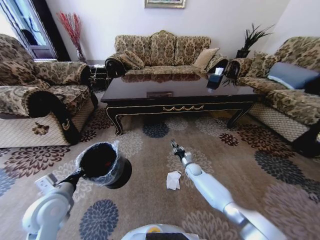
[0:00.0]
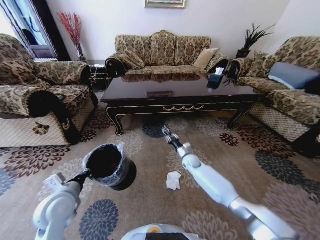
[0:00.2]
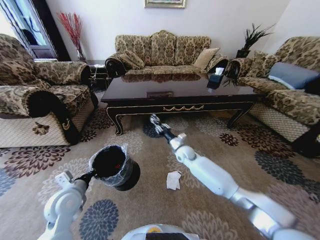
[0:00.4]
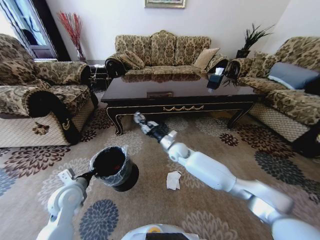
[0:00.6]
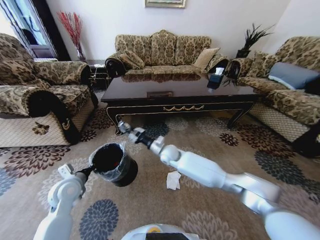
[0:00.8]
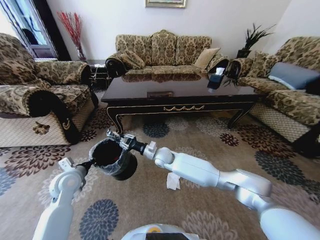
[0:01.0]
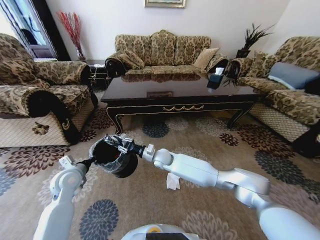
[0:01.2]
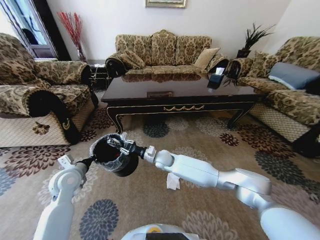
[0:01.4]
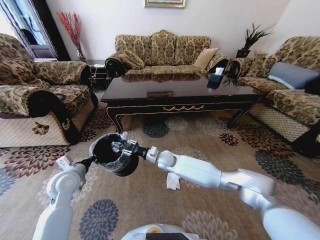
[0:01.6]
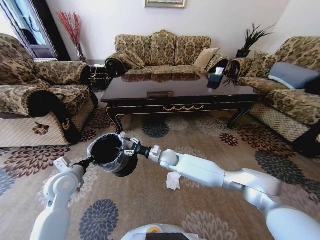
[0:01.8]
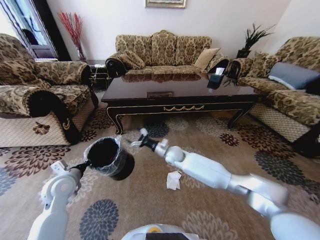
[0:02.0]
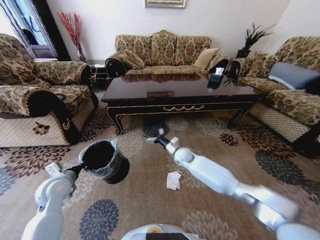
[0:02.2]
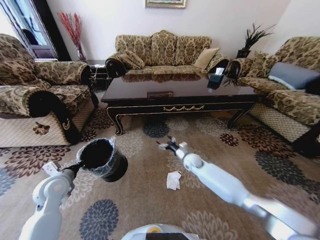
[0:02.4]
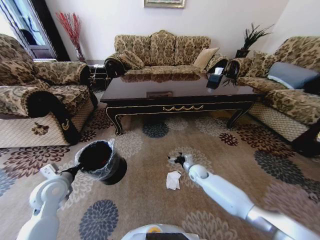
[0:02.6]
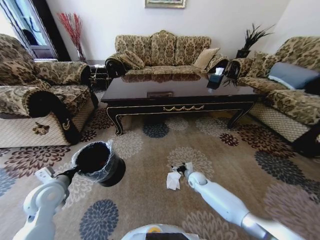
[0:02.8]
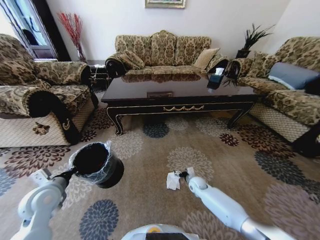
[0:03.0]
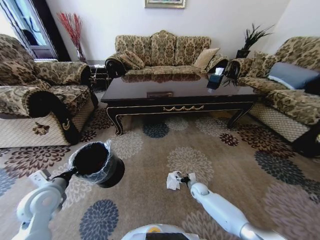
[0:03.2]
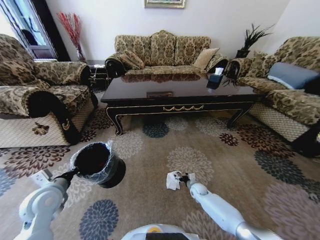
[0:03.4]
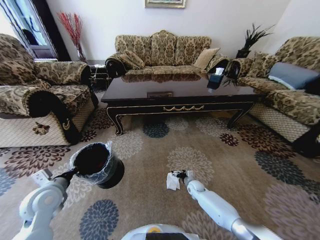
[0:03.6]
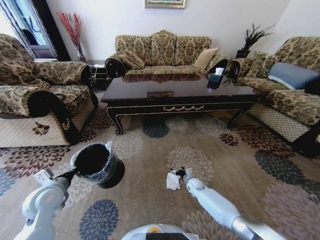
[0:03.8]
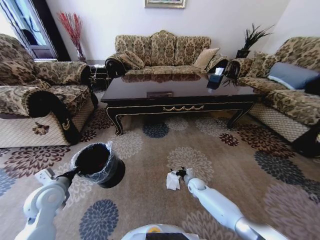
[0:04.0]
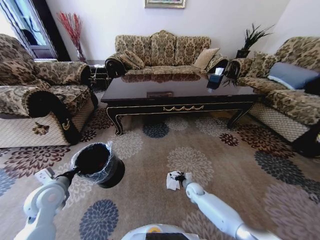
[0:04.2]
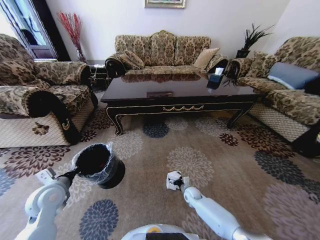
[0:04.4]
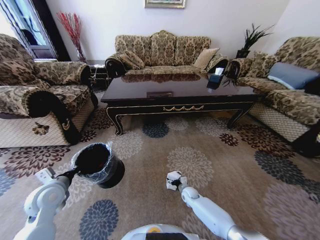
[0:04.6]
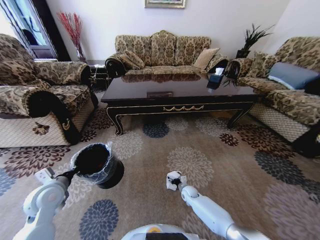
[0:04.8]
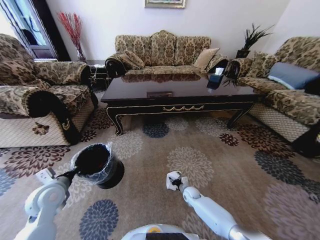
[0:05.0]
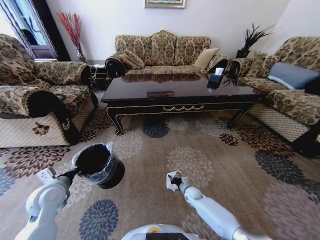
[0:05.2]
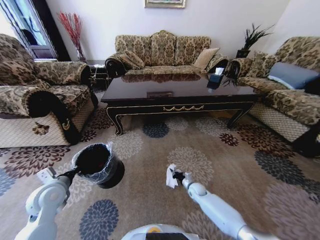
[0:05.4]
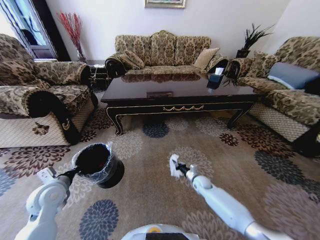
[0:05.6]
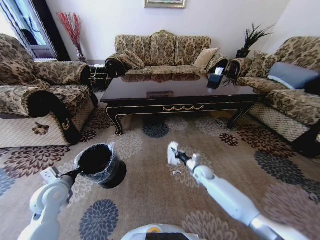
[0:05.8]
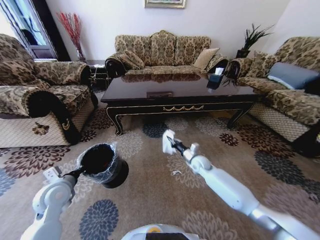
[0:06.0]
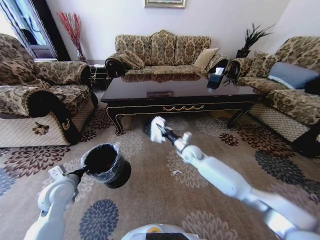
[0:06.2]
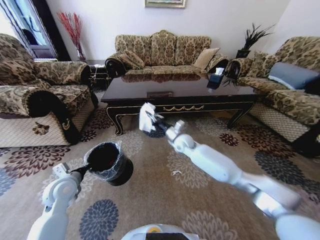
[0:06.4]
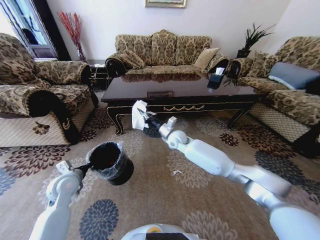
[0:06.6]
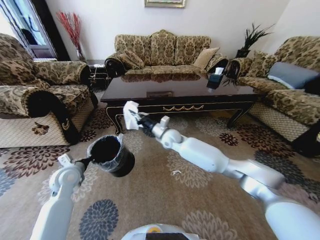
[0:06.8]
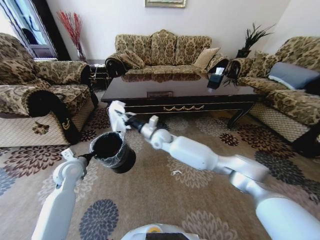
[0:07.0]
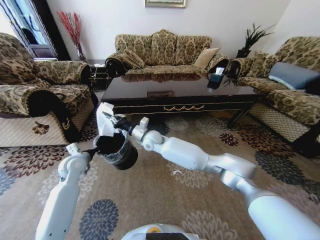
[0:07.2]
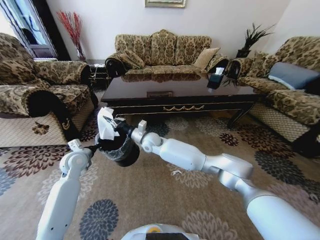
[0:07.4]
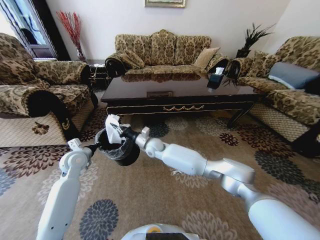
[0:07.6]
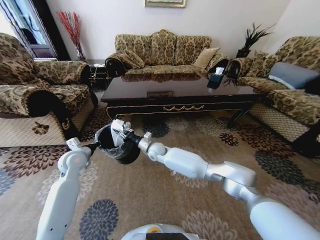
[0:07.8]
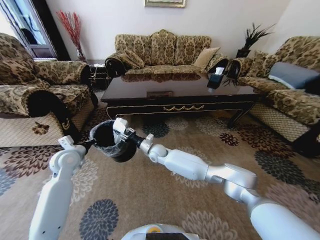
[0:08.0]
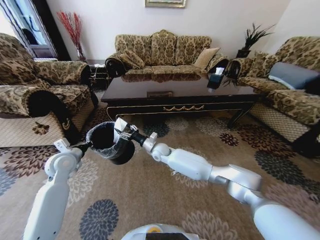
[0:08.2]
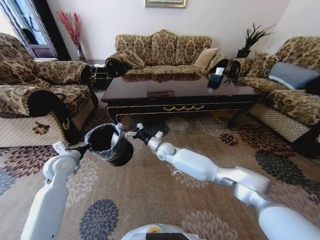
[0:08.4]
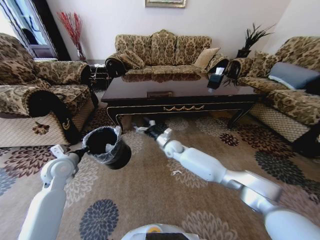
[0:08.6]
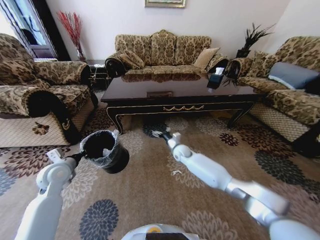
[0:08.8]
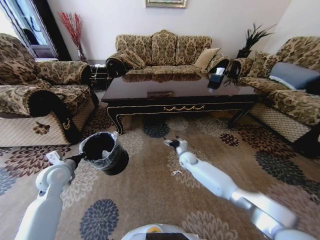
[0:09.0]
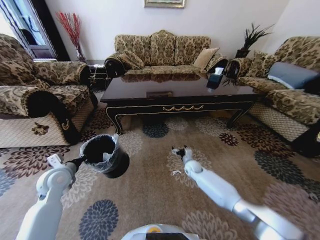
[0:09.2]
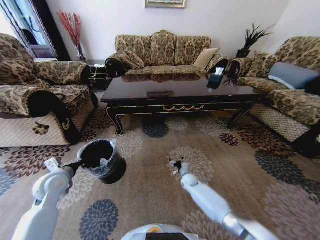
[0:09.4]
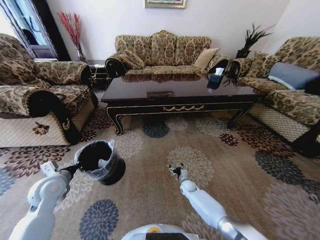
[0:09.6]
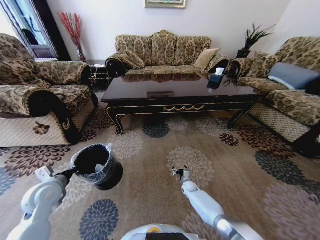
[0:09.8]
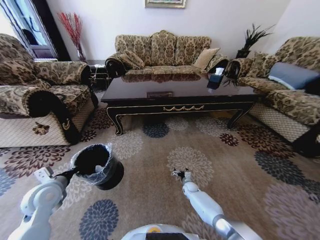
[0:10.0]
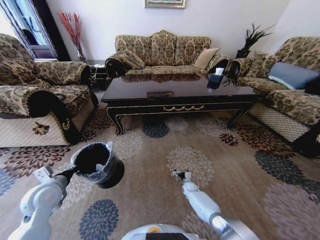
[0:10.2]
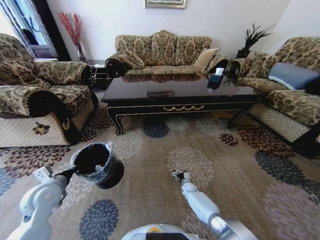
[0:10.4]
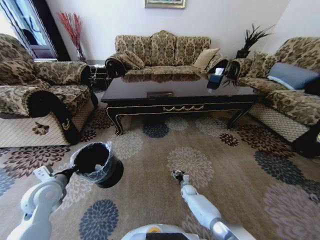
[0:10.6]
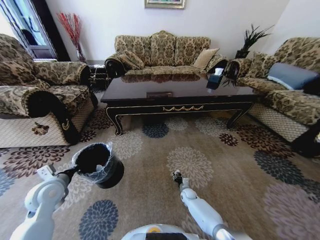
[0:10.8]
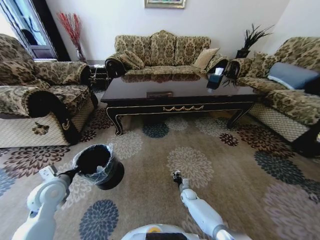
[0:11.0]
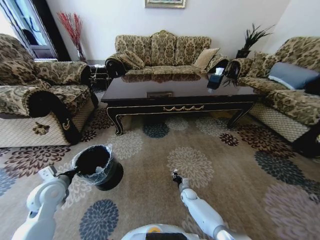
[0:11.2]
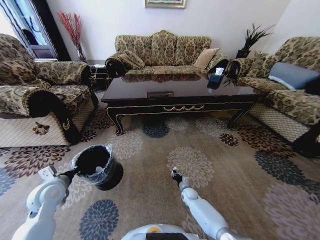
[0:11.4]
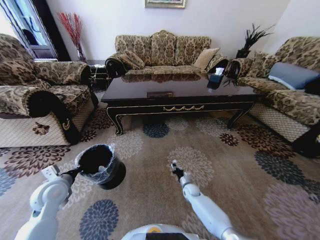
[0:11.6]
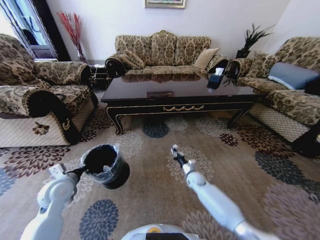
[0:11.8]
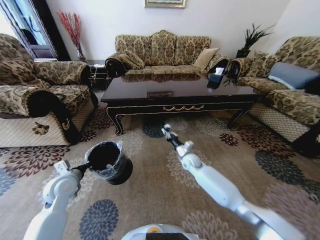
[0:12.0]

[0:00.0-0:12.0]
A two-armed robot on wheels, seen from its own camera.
Task of the whole recording: Move to the front of the table and pick up the trash from the floor, then place it into the trash bin.
0:00.0 to 0:01.6: The left gripper shifts roughly 10 cm forward, while the right gripper is displaced to the left and upward by some 25 cm.
0:01.6 to 0:03.0: The right gripper travels to the right and downward by roughly 25 cm, and opens up, while the left gripper moves backward, roughly 5 cm.
0:03.0 to 0:04.4: The right gripper is displaced downward by about 5 cm.
0:04.4 to 0:06.0: The right gripper travels upward and forward by roughly 20 cm, and closes.
0:06.0 to 0:07.6: The left gripper travels forward by roughly 15 cm, while the right gripper goes about 25 cm to the left.
0:07.6 to 0:09.0: The right gripper travels to the right and downward by some 25 cm, and opens up, while the left gripper heads backward, covering roughly 5 cm.
0:09.0 to 0:10.4: The right gripper travels downward and backward by about 25 cm, while the left gripper goes about 5 cm backward.
0:10.4 to 0:12.0: The right gripper travels upward by approximately 25 cm, and closes up.

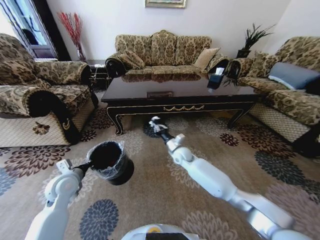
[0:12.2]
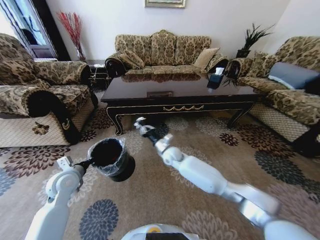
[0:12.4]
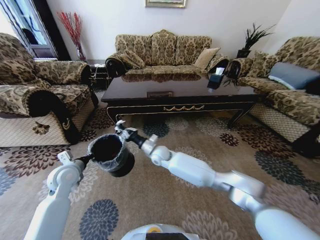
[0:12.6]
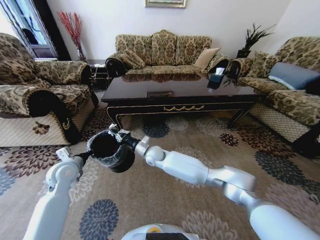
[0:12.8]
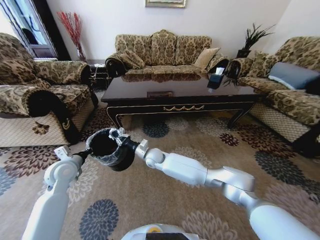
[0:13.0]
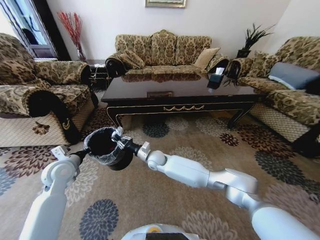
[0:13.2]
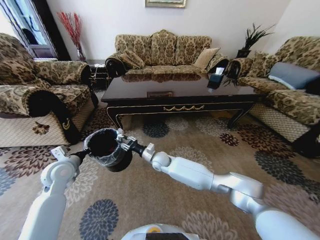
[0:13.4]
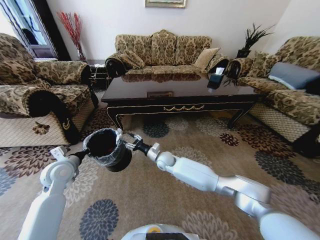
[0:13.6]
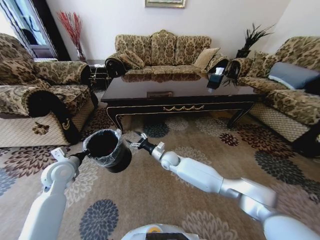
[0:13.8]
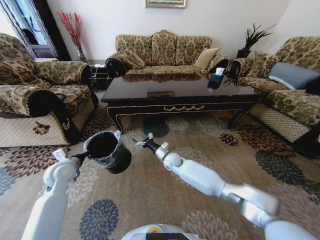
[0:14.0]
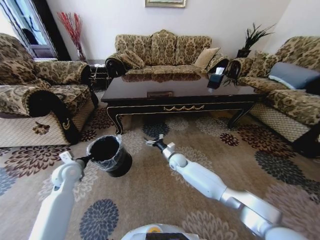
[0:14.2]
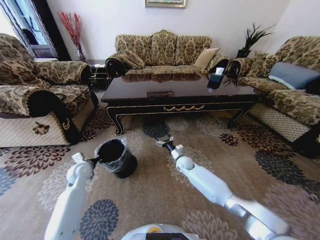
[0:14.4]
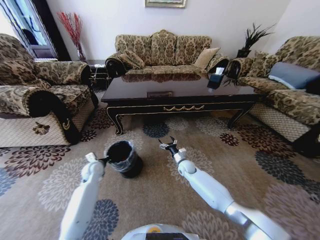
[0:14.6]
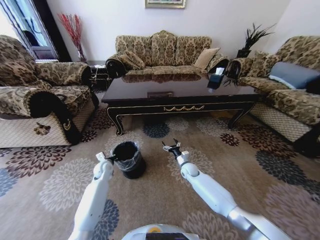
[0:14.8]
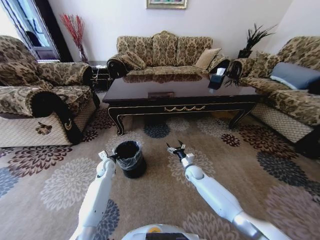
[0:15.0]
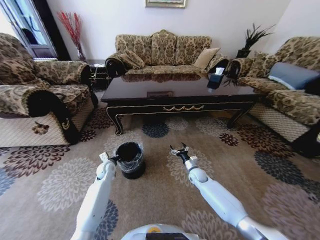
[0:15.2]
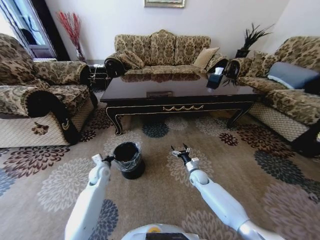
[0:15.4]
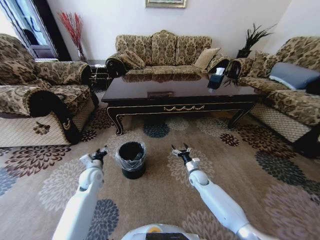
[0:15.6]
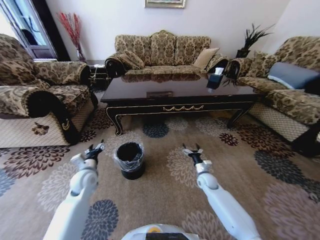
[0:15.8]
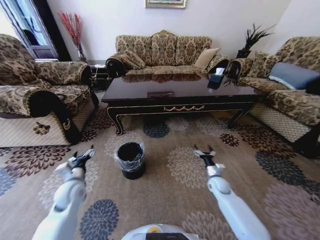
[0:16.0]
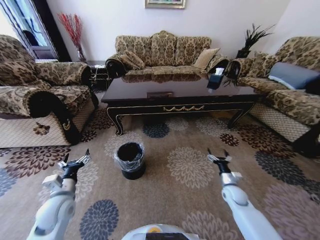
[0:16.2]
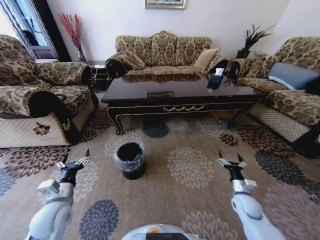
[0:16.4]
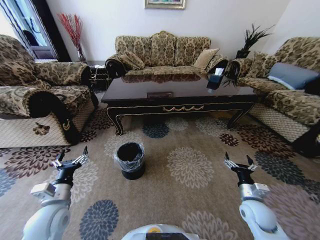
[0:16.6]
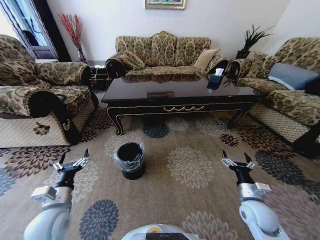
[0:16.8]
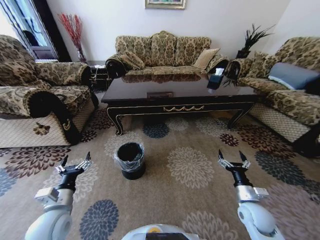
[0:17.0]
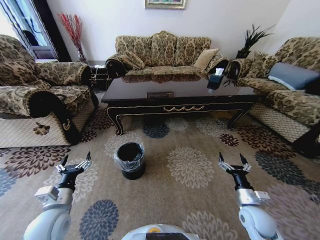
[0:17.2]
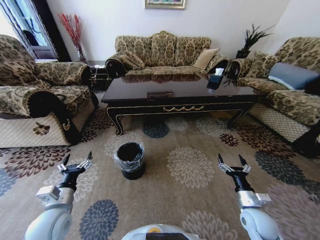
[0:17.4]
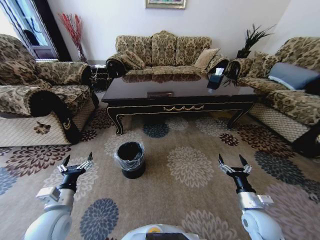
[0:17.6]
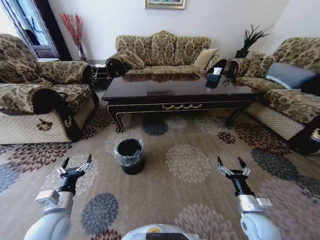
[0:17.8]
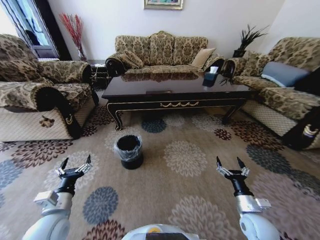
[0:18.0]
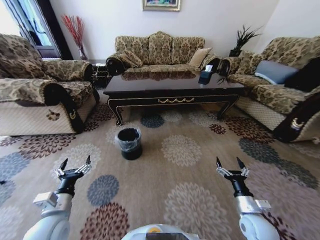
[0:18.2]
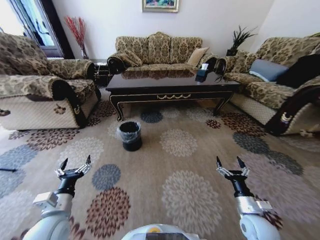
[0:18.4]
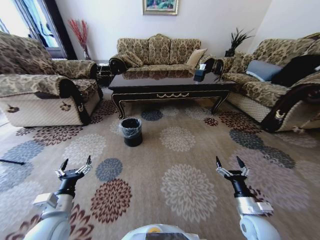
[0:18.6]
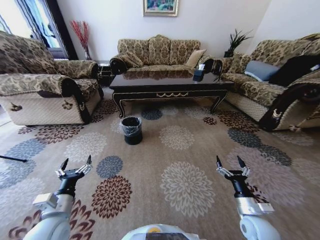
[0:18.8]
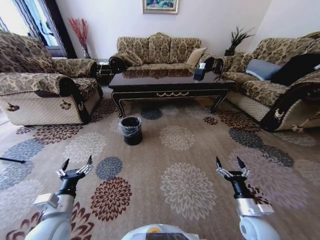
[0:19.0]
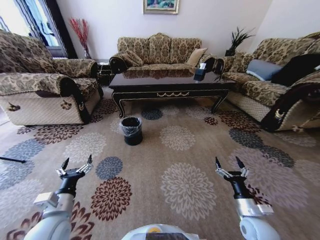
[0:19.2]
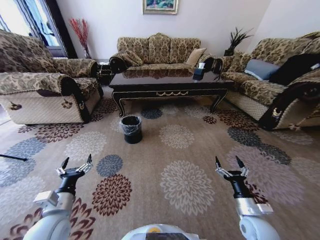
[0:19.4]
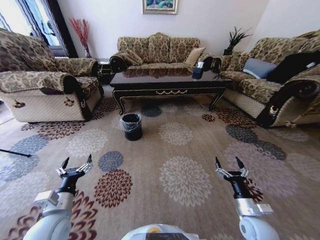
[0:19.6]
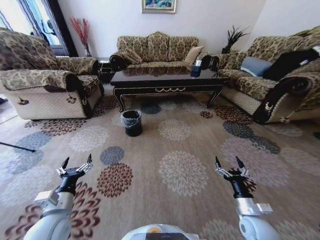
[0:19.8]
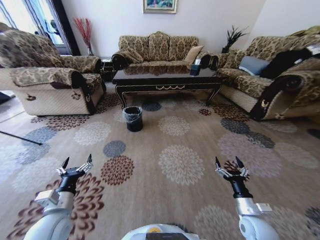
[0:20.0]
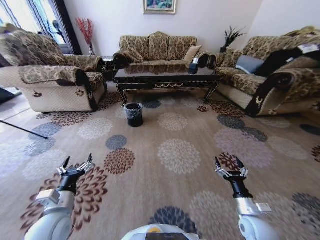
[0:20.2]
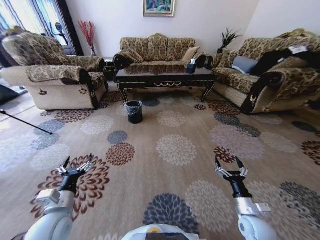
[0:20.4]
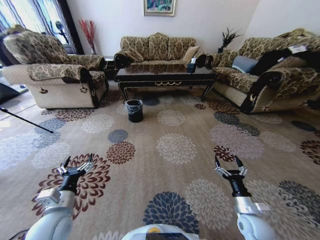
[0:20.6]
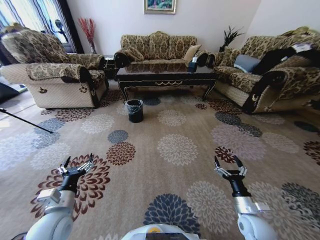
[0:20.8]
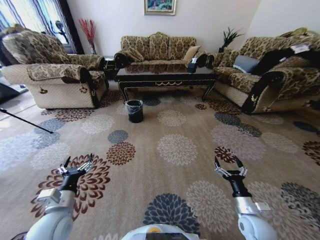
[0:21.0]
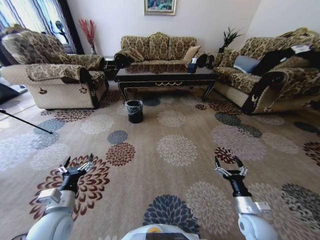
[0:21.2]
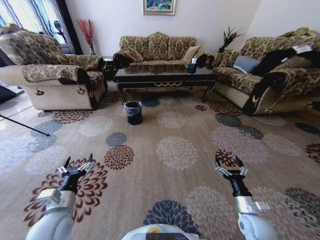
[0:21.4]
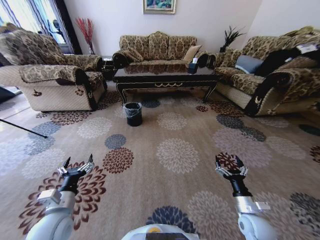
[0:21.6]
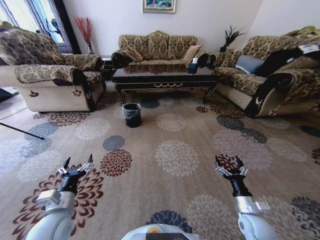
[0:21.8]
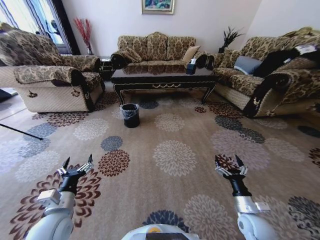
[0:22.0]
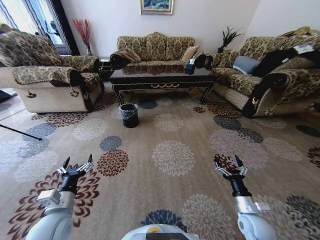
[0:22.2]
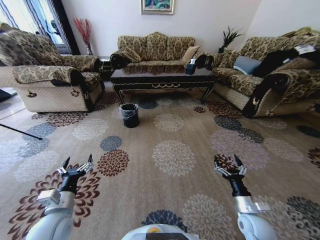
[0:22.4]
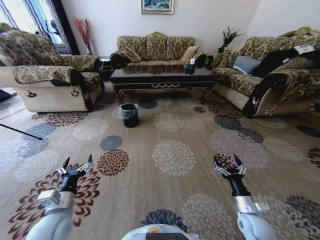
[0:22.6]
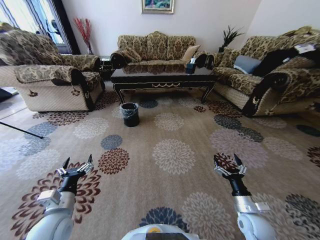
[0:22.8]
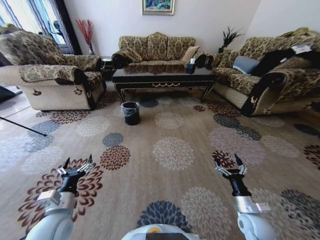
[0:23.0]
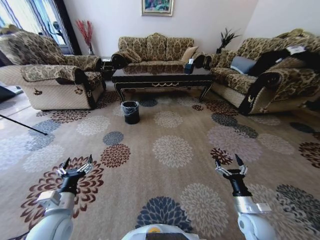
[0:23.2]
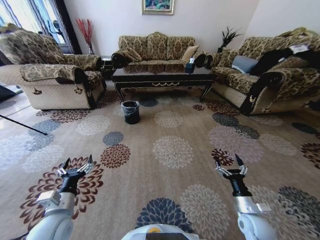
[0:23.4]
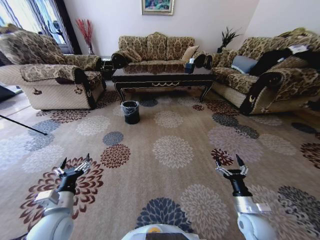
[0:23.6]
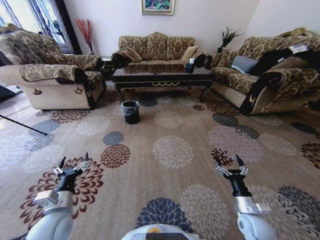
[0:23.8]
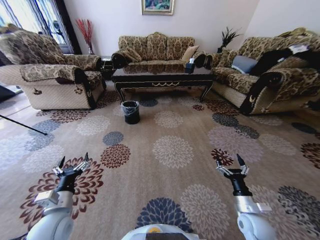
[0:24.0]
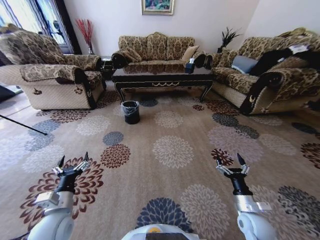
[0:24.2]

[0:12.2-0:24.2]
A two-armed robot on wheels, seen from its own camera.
Task of the whole recording: Move to the front of the table and pick up the trash from the floor, then place it into the trash bin.
0:12.2 to 0:13.8: The left gripper ends up approximately 5 cm from where it was; the right gripper travels to the left by approximately 5 cm, and opens its fingers.
0:13.8 to 0:15.2: The left gripper moves downward, to the right and forward, some 20 cm. Meanwhile the right gripper moves to the right and downward, some 20 cm.
0:15.2 to 0:16.6: The right gripper travels backward, to the right and upward by some 25 cm. Meanwhile the left gripper goes about 25 cm backward and upward, and opens.
